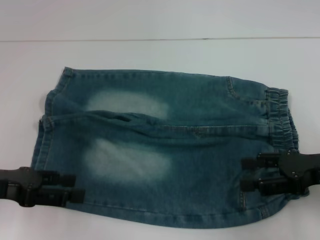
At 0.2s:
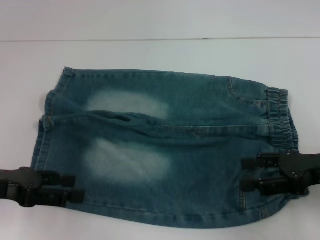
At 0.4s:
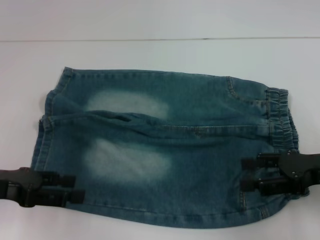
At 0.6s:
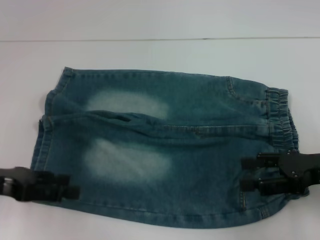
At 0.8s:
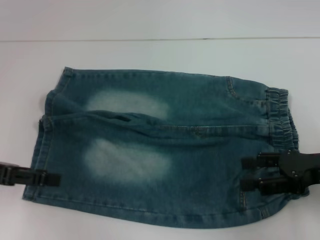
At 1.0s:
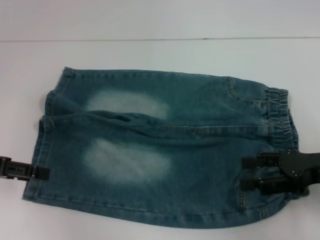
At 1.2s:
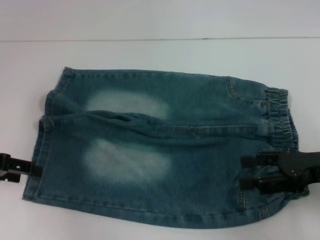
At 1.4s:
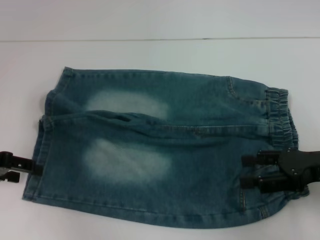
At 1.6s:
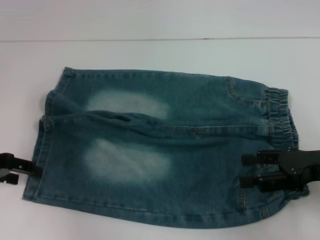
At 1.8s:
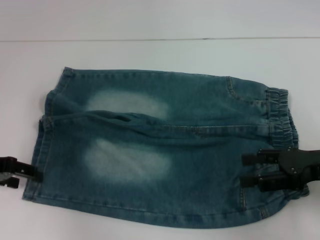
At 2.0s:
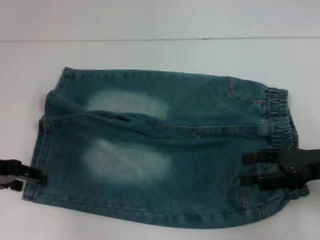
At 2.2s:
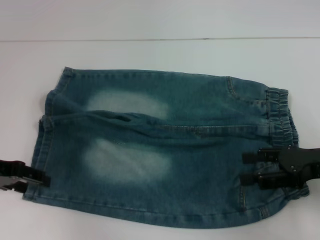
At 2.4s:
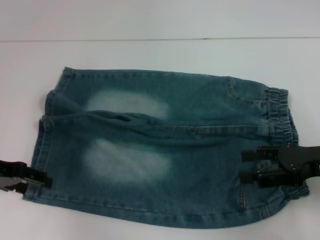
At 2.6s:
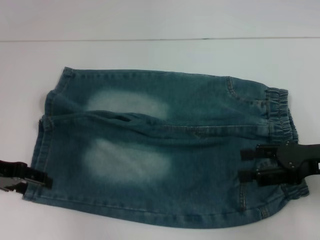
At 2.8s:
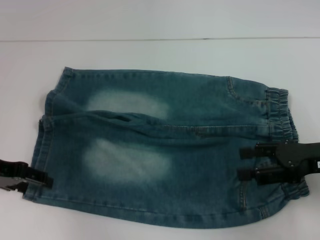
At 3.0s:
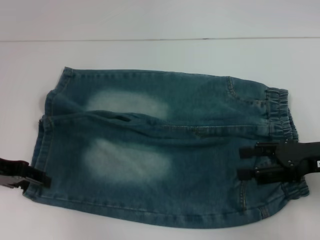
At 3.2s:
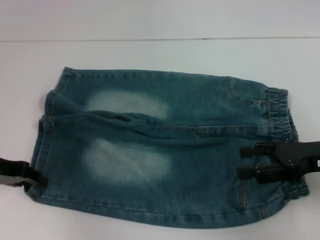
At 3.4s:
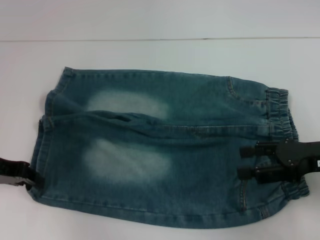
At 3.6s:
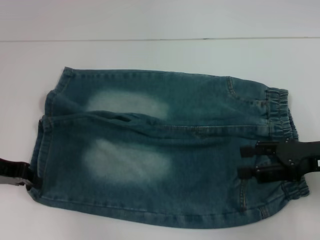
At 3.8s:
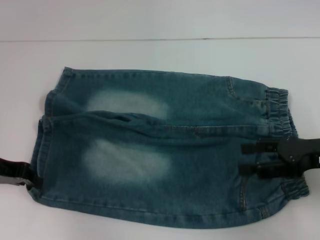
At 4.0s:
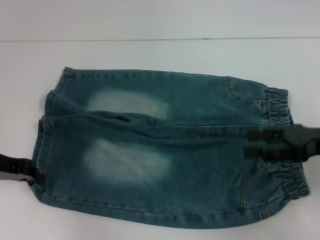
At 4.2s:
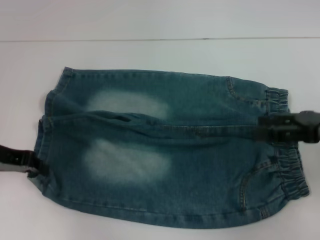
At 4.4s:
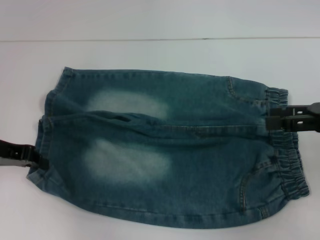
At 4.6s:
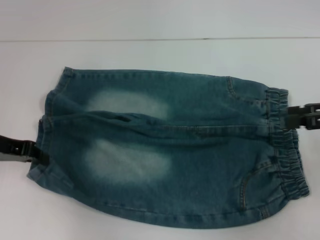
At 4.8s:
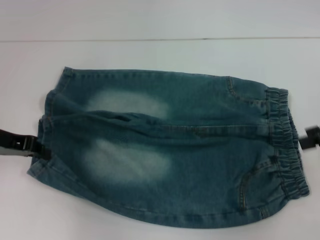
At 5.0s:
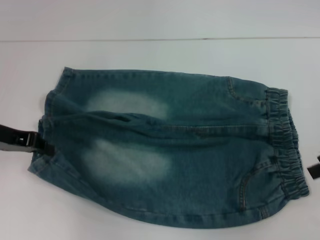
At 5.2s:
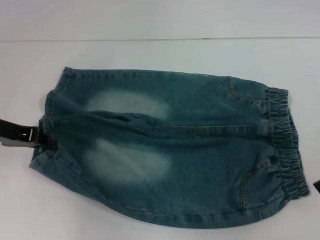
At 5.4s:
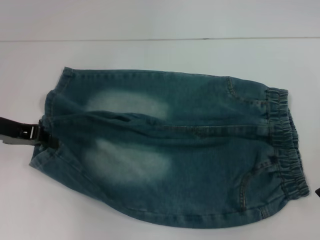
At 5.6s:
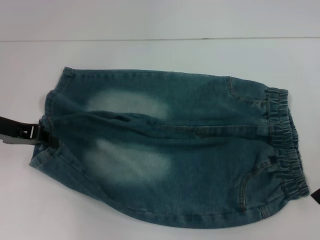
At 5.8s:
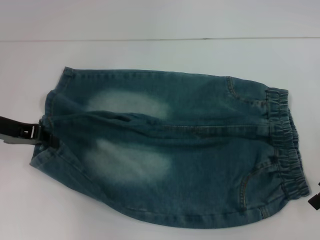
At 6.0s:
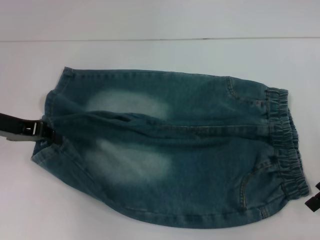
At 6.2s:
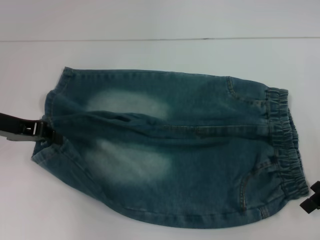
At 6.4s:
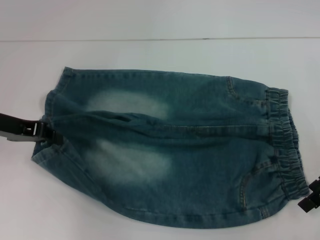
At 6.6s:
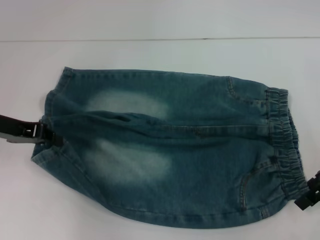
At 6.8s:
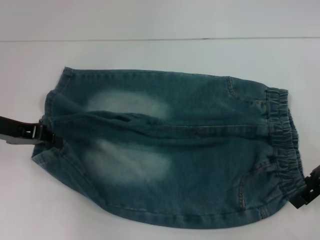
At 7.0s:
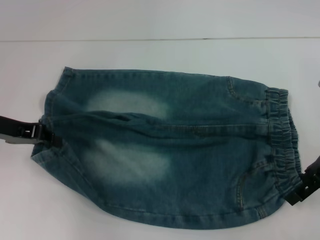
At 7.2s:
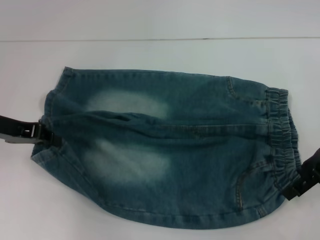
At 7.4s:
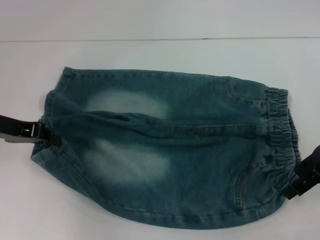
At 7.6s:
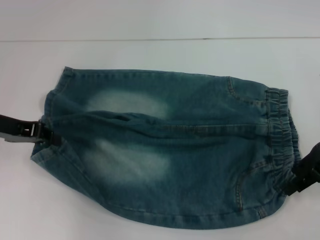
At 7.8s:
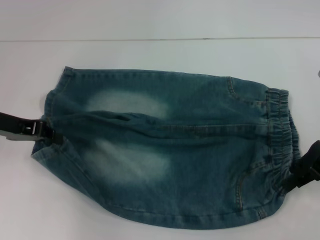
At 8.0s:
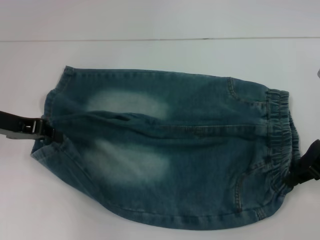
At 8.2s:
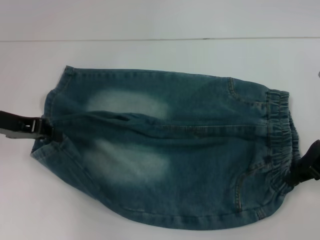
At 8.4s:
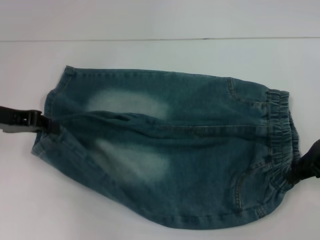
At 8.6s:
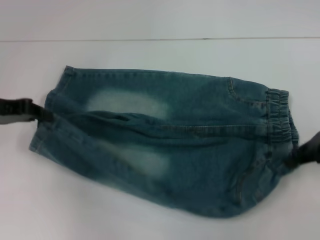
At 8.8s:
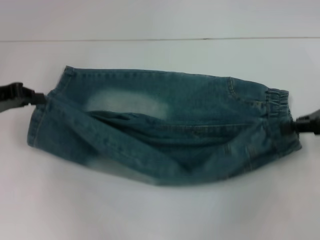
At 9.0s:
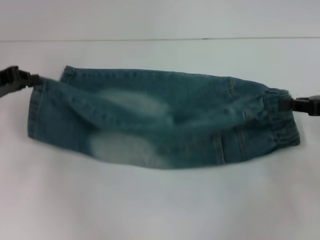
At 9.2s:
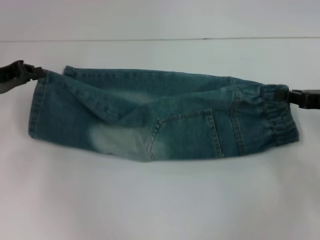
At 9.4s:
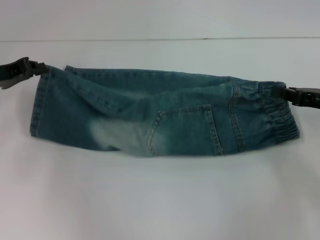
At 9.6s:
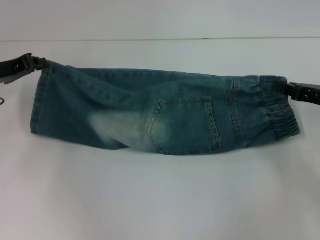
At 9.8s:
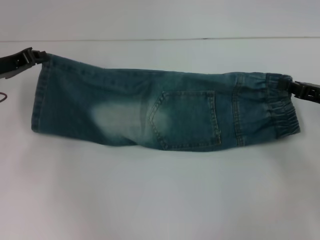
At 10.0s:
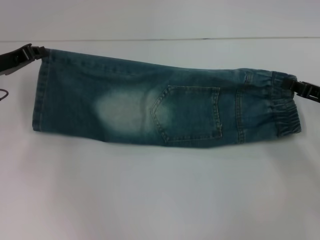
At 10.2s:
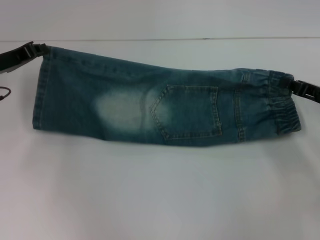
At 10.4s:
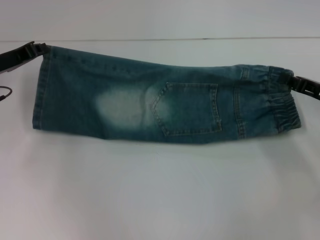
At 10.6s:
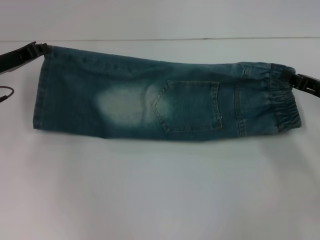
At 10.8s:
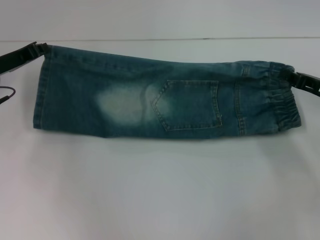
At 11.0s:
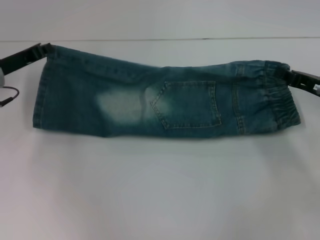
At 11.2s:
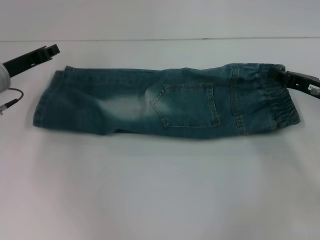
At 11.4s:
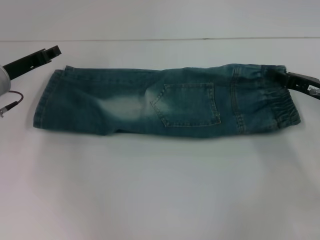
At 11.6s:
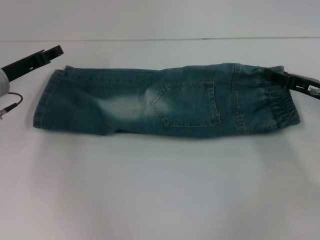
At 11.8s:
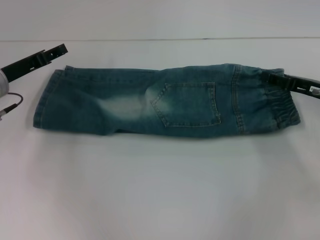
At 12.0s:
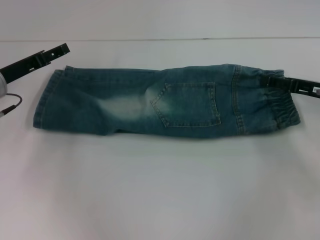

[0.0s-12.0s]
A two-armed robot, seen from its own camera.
Step, 0.0s to 3.2s: Grab the lower left pant leg with your left hand.
Step, 3.6s to 6.8s: Hold the lower right waistband with your right hand.
0.0s to 1.6s: The left gripper goes about 5 cm forward.
1.6s to 3.0s: The grippers move only a little.
3.0s to 4.4s: The right gripper moves roughly 5 cm; the left gripper closes up.
6.0s to 7.6s: The grippers move only a little.
7.6s to 9.0s: The right gripper shifts approximately 5 cm to the right, and closes.
9.0s to 10.4s: The left gripper ends up approximately 5 cm from where it was, while the right gripper travels downward by approximately 5 cm.
10.4s to 12.0s: The right gripper opens its fingers; the left gripper opens up.

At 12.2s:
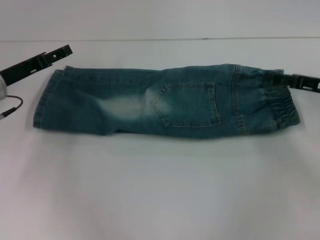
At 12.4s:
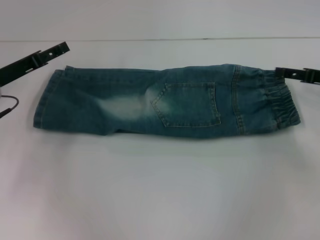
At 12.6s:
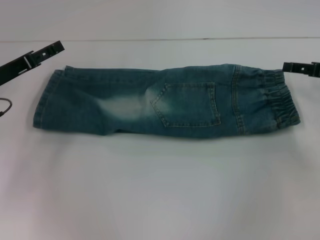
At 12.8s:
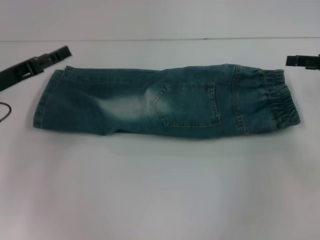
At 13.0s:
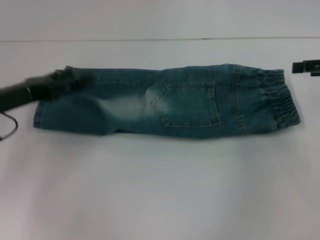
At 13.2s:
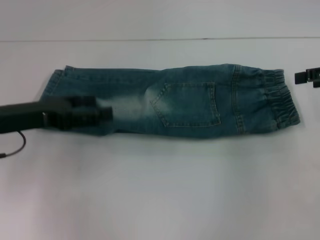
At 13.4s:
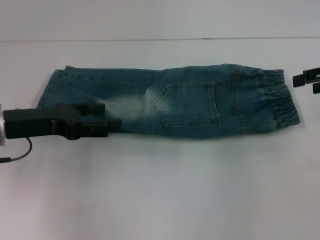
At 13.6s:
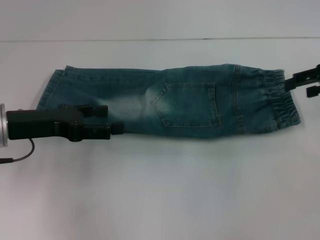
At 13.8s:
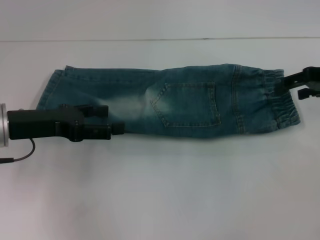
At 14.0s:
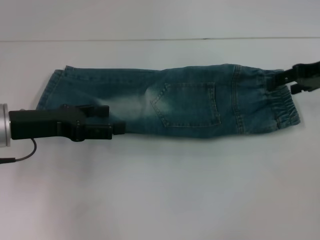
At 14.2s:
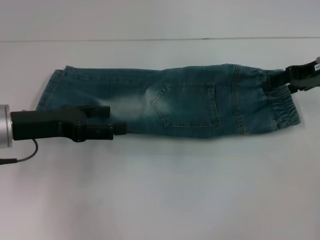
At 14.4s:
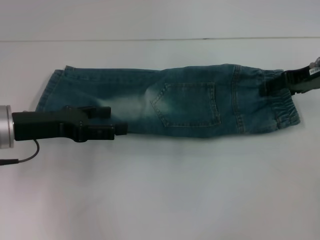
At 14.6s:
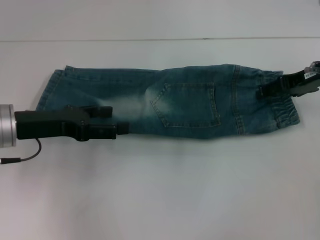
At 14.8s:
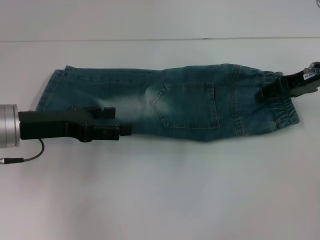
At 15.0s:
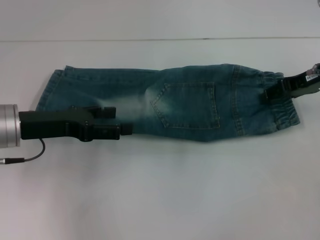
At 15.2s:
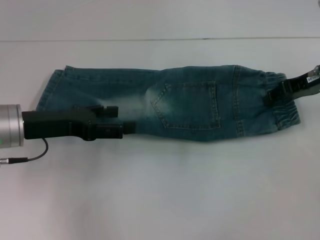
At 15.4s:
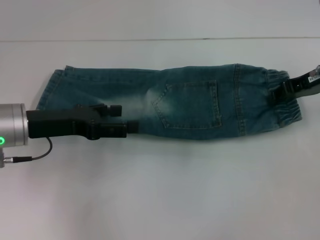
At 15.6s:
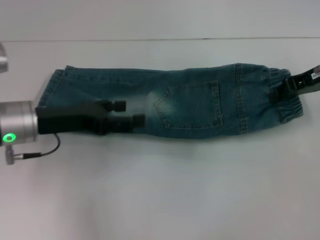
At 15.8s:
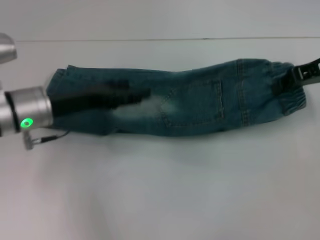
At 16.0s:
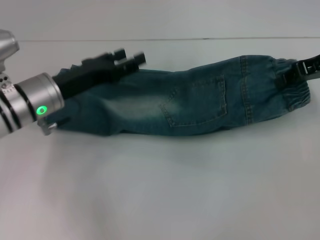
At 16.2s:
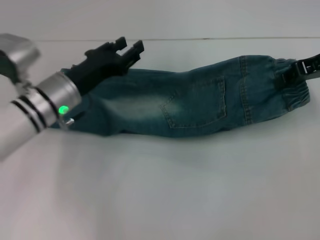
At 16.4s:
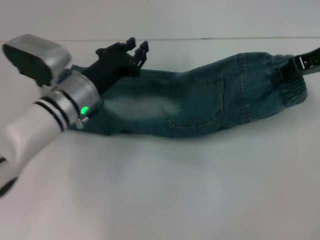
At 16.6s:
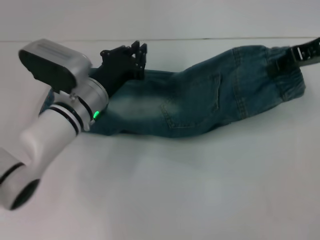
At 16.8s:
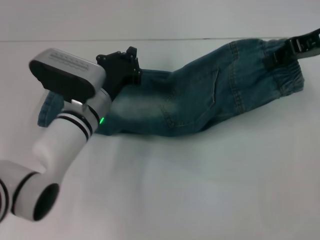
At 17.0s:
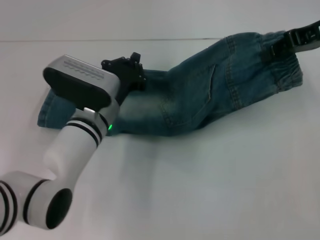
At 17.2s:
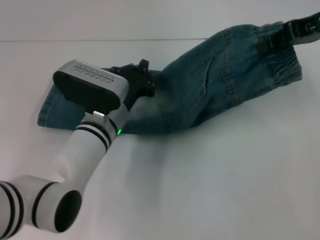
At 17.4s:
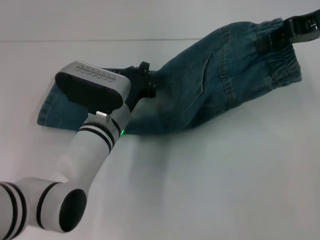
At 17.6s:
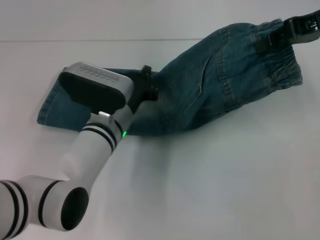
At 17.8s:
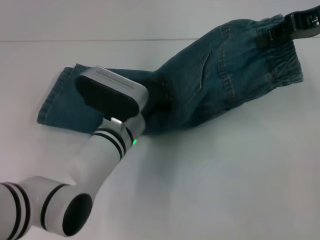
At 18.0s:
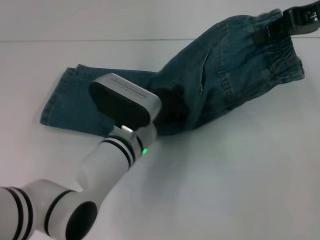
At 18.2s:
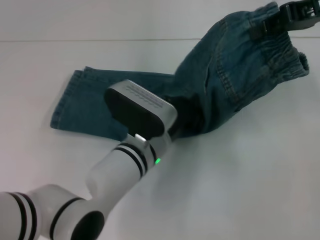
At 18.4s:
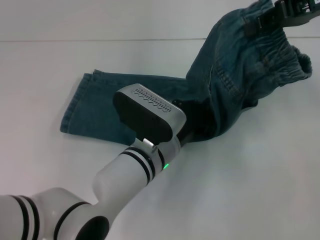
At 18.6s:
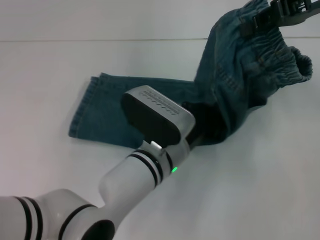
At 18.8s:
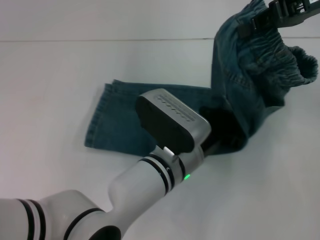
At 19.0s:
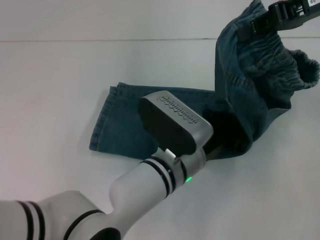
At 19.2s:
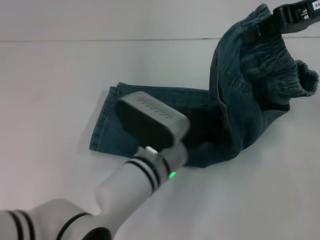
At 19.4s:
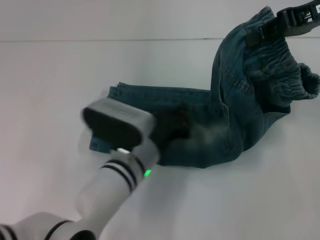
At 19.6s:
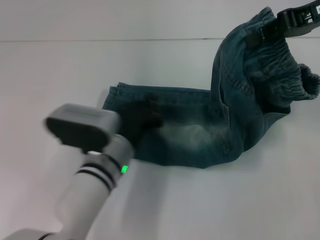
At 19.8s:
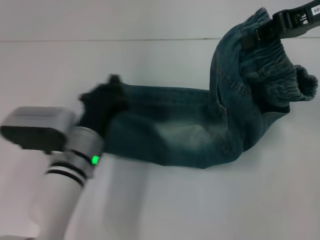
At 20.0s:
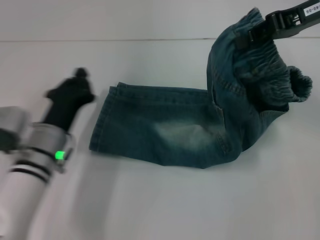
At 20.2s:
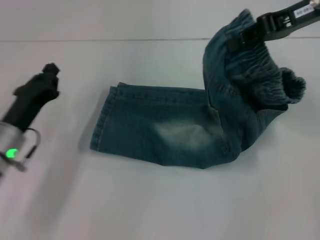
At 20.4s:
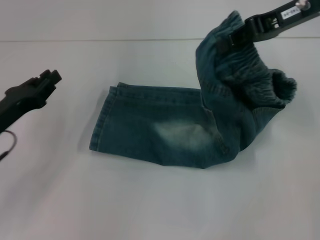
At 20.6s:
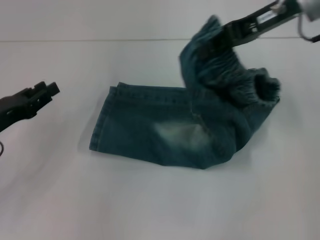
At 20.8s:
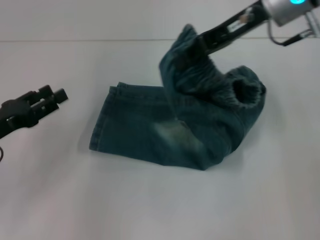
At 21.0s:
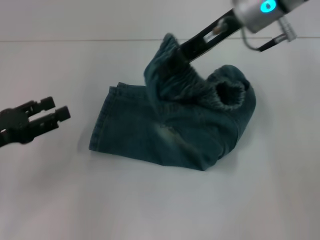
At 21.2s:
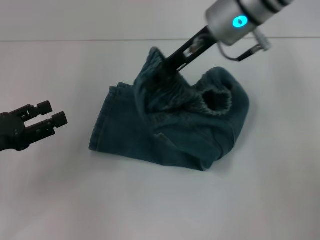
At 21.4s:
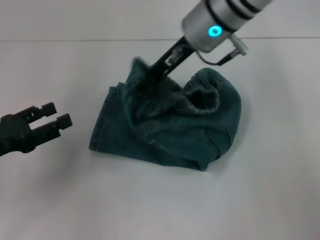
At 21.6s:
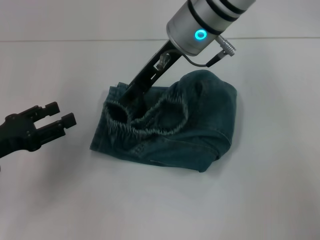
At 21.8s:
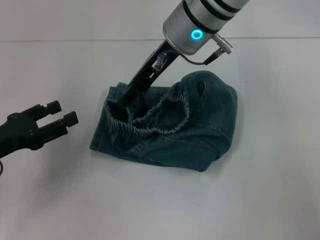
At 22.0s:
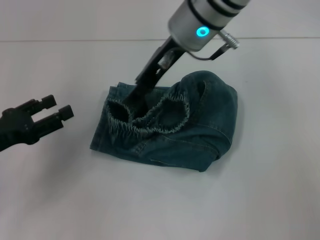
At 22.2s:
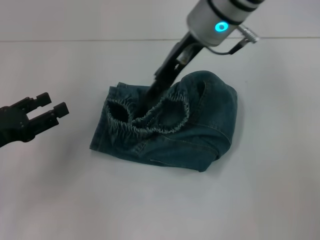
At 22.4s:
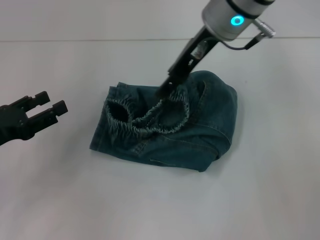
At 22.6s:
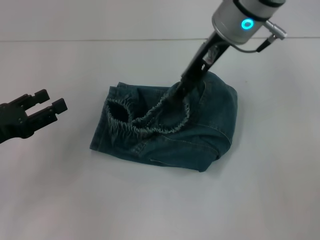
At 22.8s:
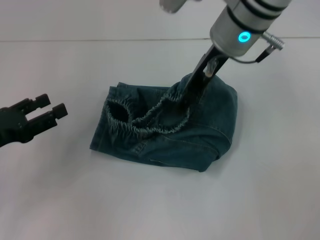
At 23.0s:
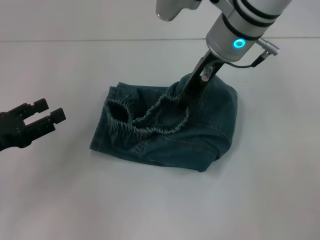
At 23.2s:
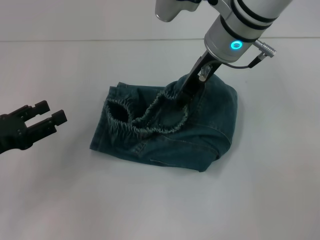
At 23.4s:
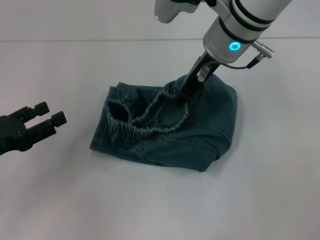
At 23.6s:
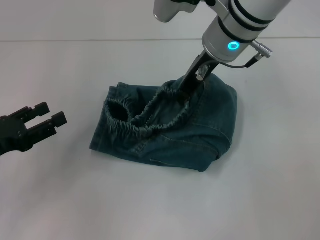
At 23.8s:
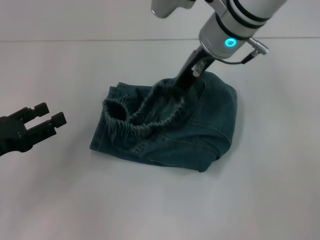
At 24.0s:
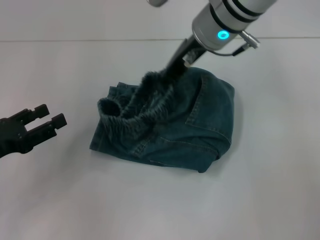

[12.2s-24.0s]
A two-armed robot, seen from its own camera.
Step, 12.4s to 14.6s: Grab the waistband with your right hand.
Step, 14.8s to 19.2s: Press the middle of the pants with your left hand.
Step, 19.4s to 22.0s: Fold to the left with your right hand.
12.2s to 13.6s: The left gripper shifts roughly 5 cm backward; the right gripper shifts roughly 10 cm upward.
13.6s to 15.2s: The right gripper goes approximately 5 cm to the left, and closes up.
15.2s to 16.6s: The right gripper travels upward by roughly 5 cm, and closes up; the left gripper heads to the right, downward and forward, covering some 15 cm, and closes its fingers.
16.6s to 18.2s: The right gripper is displaced upward by approximately 5 cm. The left gripper moves to the right and backward, roughly 10 cm.
18.2s to 19.6s: The left gripper ends up some 5 cm from where it was.
19.6s to 21.0s: The right gripper travels to the left by roughly 15 cm. The left gripper heads to the left, covering about 25 cm, and opens.
21.0s to 22.6s: The right gripper opens up.
22.6s to 24.0s: The right gripper closes up.
